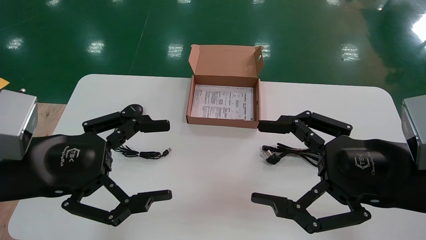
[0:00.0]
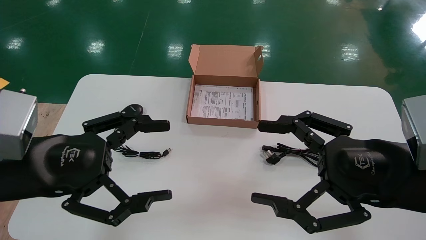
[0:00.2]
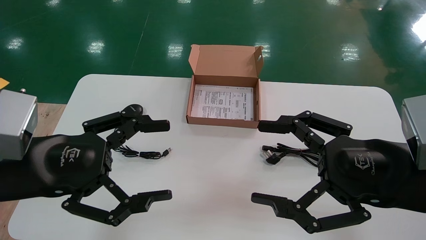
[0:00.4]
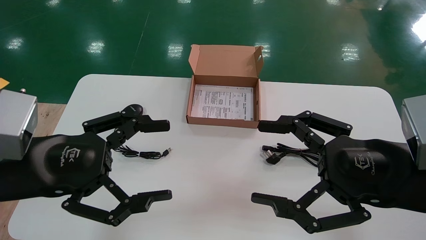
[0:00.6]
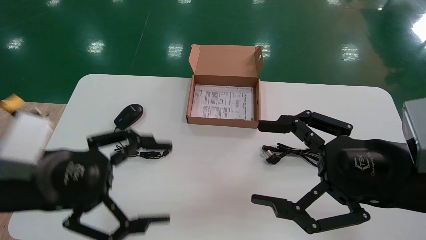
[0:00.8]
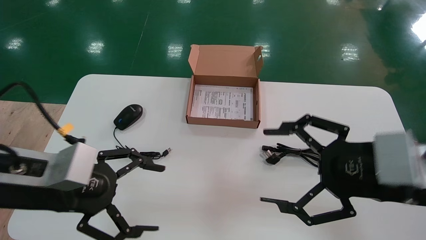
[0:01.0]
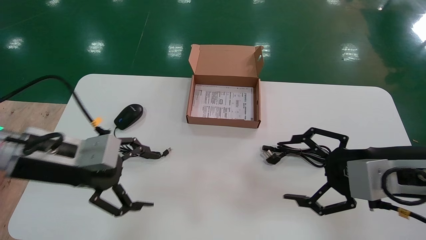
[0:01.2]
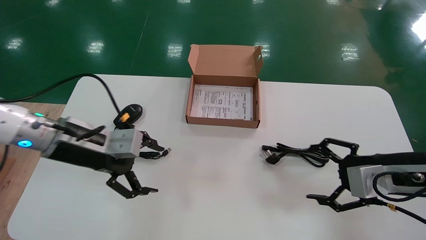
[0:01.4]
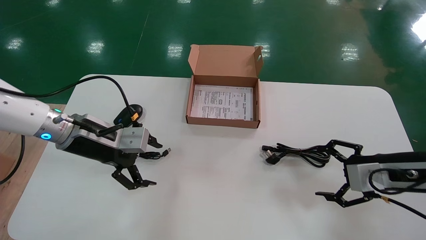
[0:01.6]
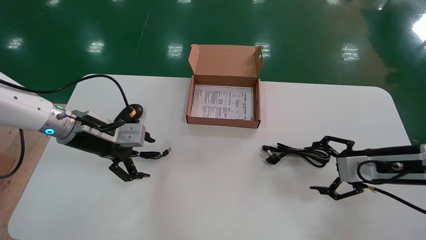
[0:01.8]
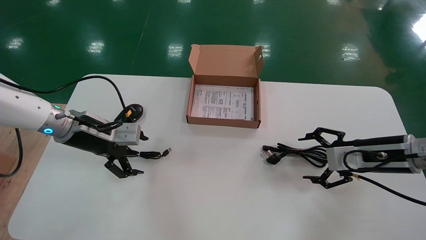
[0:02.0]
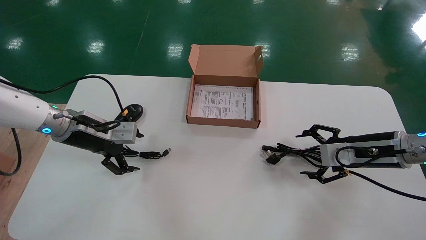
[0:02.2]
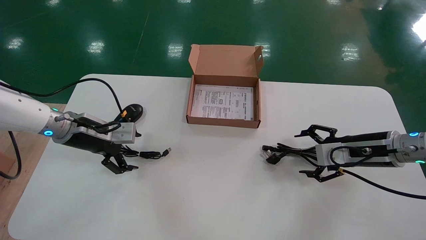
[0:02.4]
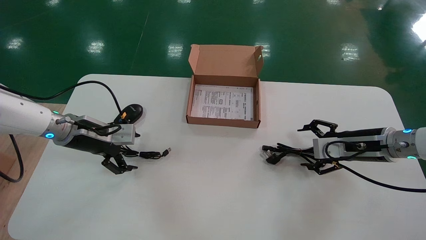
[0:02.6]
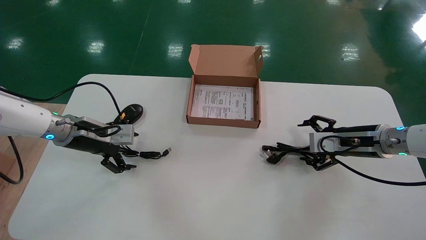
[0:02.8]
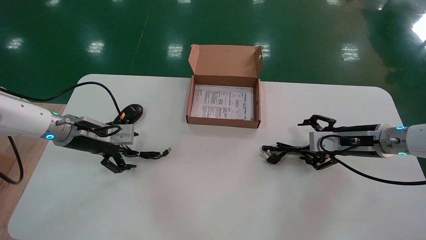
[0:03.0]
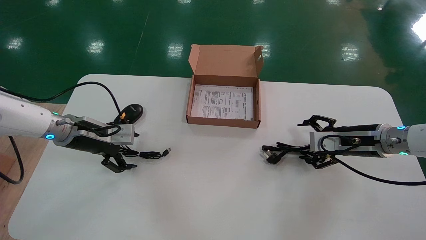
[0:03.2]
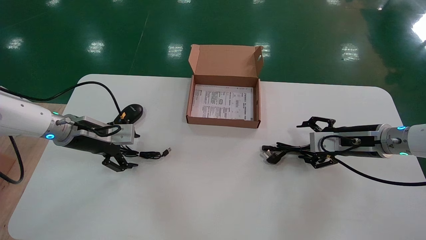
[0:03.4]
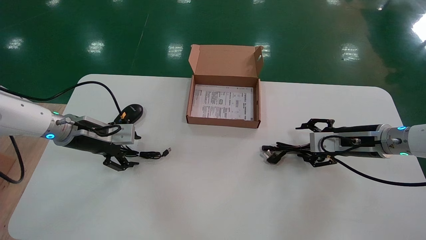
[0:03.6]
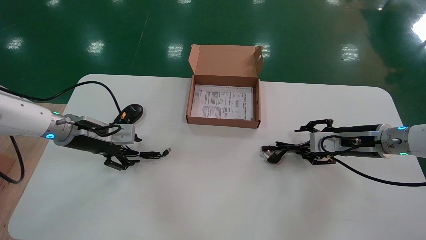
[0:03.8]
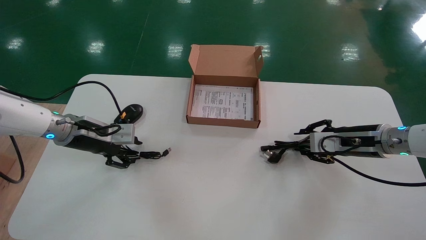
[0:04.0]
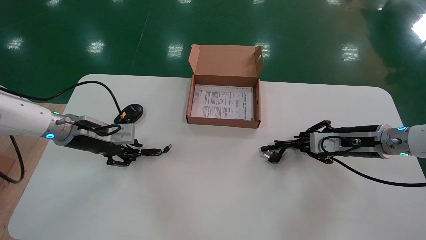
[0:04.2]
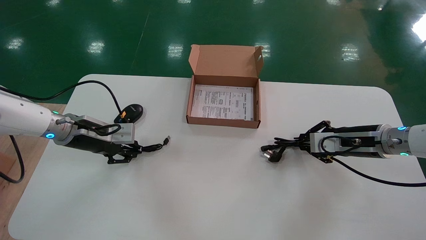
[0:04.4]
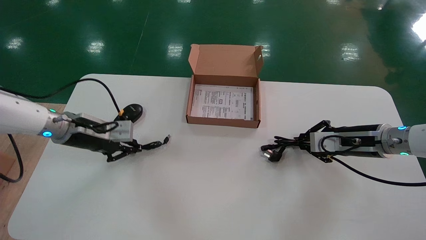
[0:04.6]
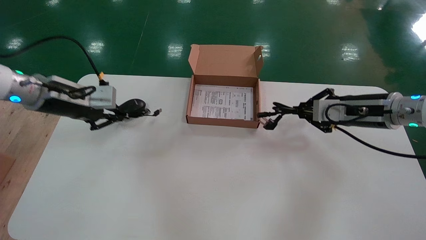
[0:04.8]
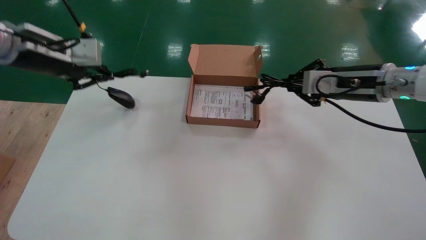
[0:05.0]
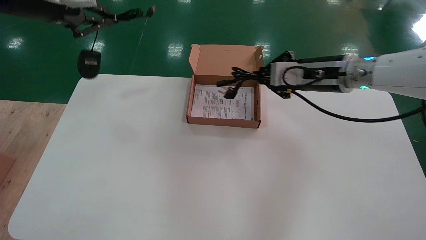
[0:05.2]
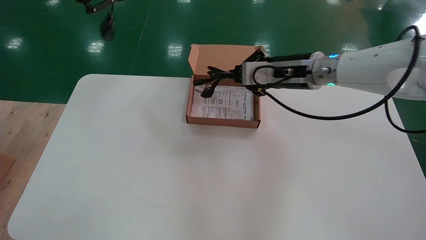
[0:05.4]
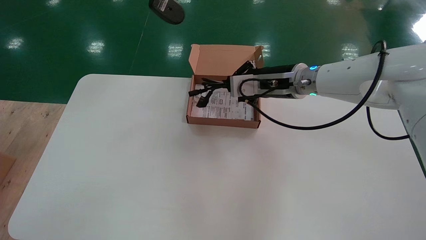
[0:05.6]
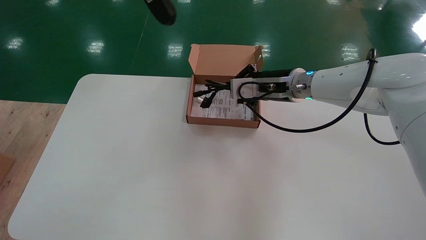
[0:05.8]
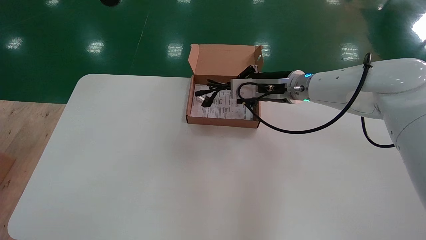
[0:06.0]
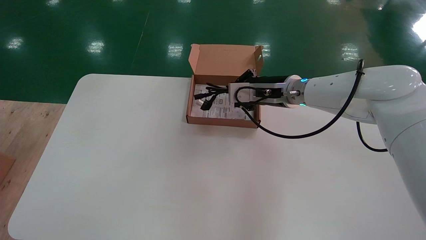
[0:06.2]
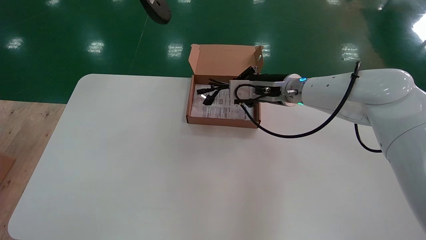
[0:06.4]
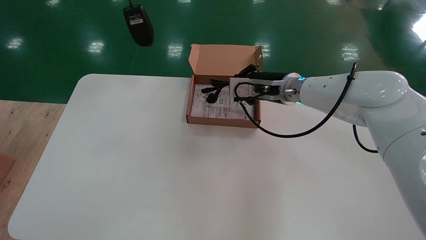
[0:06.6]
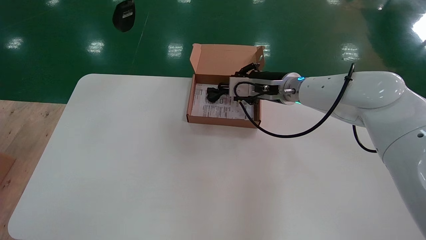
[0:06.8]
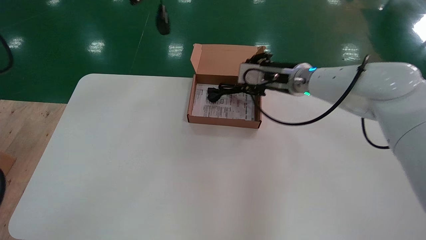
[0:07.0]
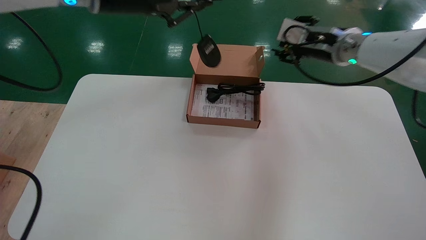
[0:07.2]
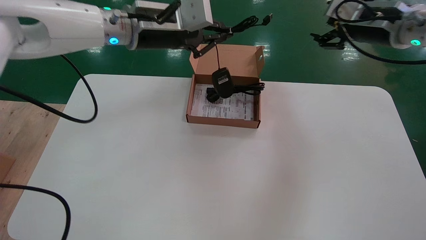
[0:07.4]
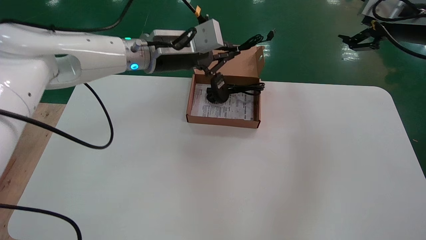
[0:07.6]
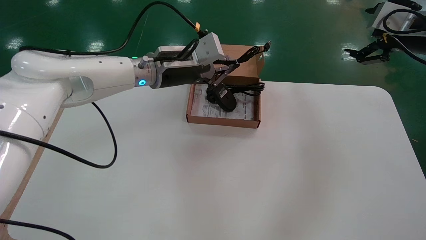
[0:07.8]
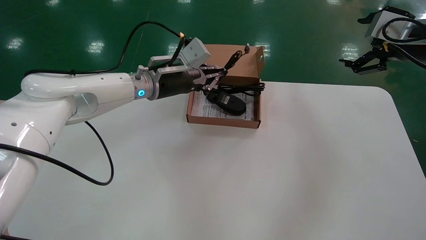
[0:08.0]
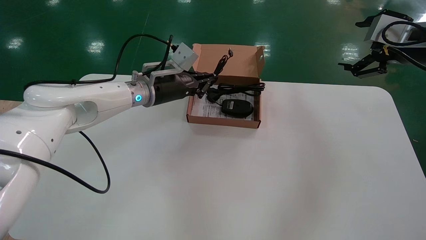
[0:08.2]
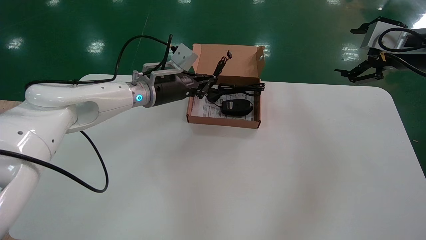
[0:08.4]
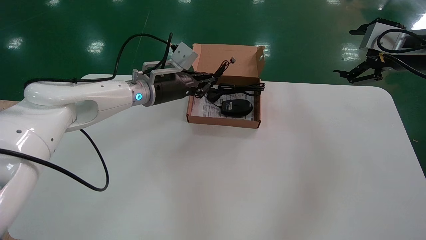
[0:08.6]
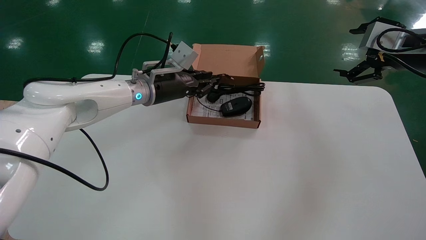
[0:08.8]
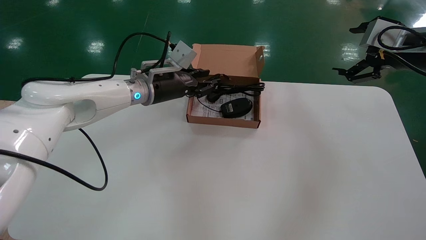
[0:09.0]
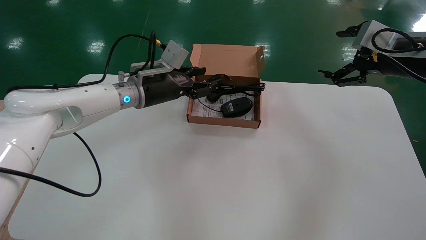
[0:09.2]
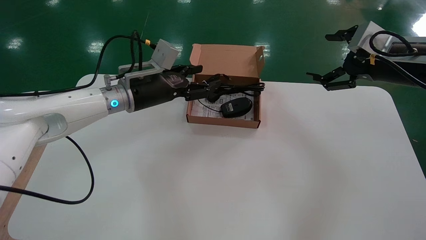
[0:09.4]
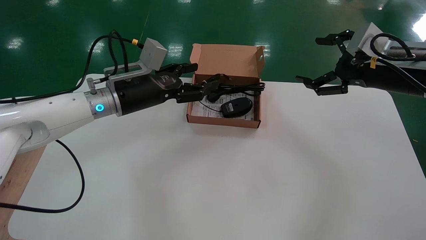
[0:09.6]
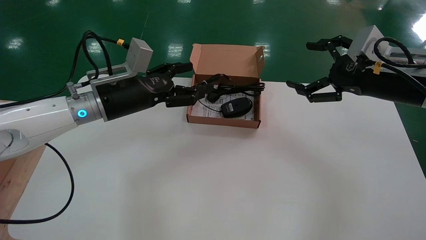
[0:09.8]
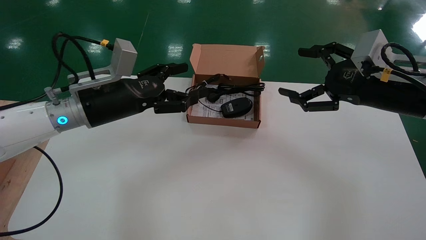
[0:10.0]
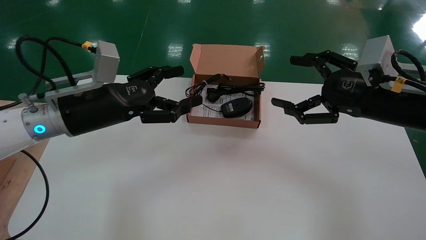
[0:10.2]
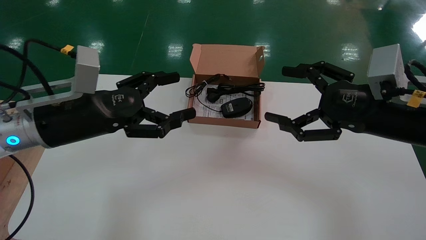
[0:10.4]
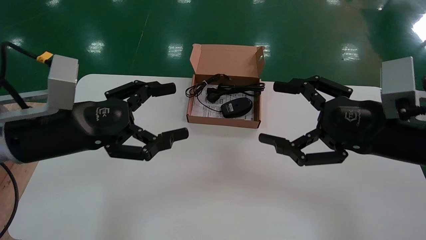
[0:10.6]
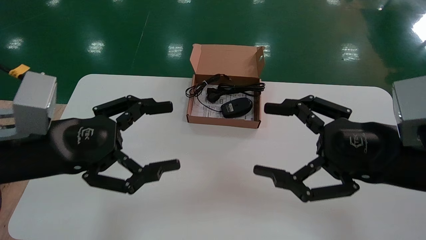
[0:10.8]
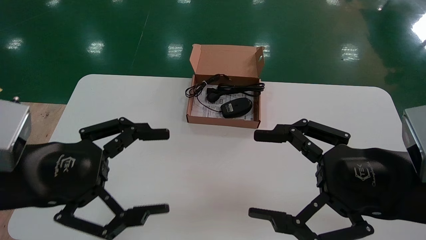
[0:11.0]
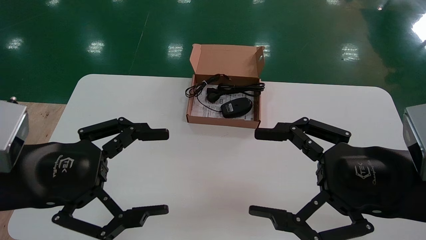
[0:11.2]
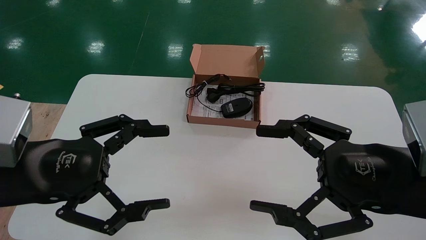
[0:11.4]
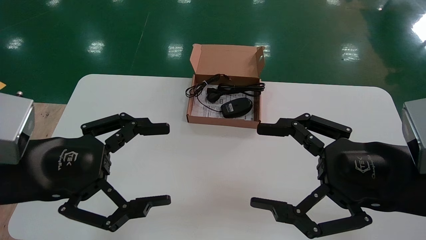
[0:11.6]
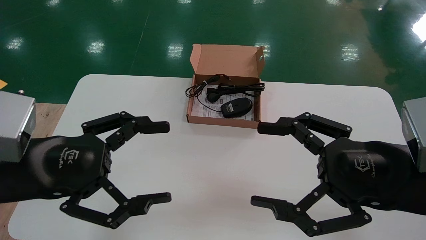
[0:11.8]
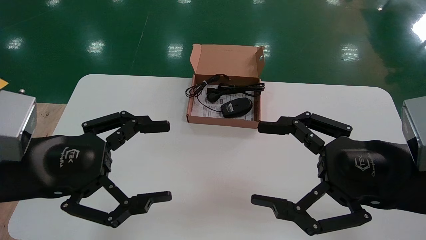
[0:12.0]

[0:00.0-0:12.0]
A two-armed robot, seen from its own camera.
Step, 0:01.2 to 0:04.6: Simultaneously pick up the mouse and power cord from the accessory packaging area.
Step, 0:04.8 to 0:08.8: Place the mouse and power cord into the box.
0:00.0 to 0:01.6: The left gripper heads forward, covering about 15 cm, while the right gripper is displaced forward, to the right and downward by about 15 cm.
0:01.6 to 0:03.0: The left gripper travels forward and to the left by about 10 cm, while the right gripper moves forward, about 10 cm.
0:03.0 to 0:04.4: The left gripper closes its fingers. Meanwhile the right gripper closes.
0:04.4 to 0:06.0: The right gripper travels to the left and upward by some 20 cm, while the left gripper travels upward by about 35 cm.
0:06.0 to 0:07.6: The left gripper moves downward, to the right and forward, some 25 cm; the right gripper goes about 25 cm to the right and upward, and opens its fingers.
0:07.6 to 0:09.0: The left gripper moves downward, roughly 10 cm.
0:09.0 to 0:10.4: The left gripper travels backward and to the left by about 20 cm, and opens its fingers. Meanwhile the right gripper is displaced backward, to the left and downward by roughly 15 cm.
0:10.4 to 0:12.0: The two grippers go roughly 10 cm backward.

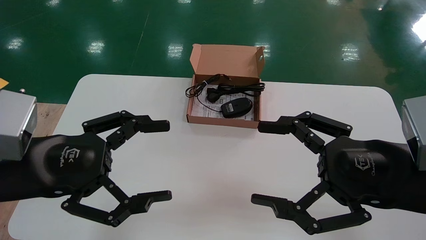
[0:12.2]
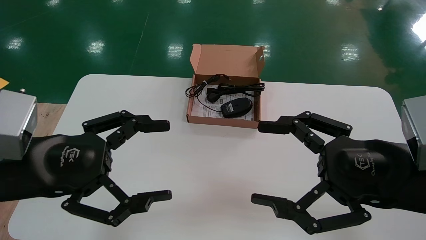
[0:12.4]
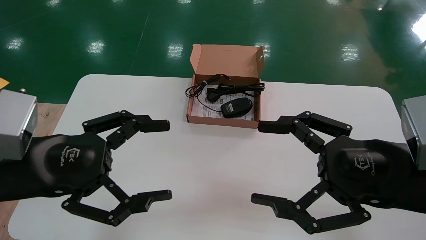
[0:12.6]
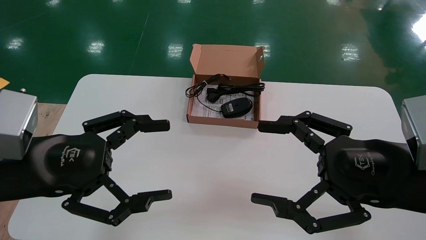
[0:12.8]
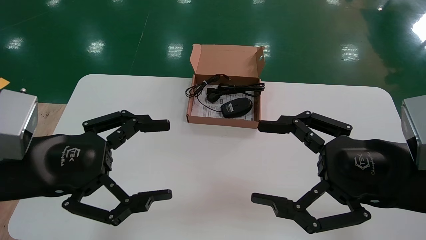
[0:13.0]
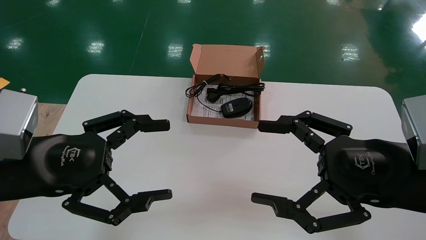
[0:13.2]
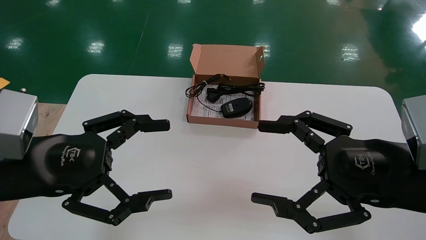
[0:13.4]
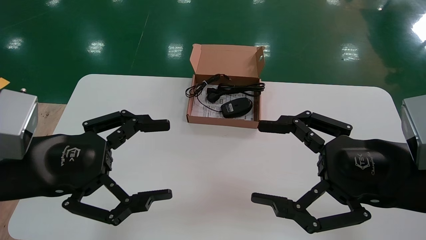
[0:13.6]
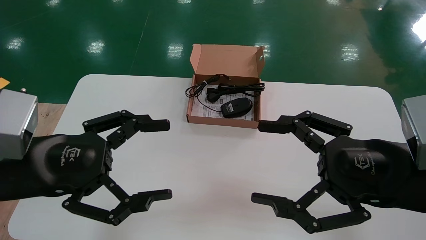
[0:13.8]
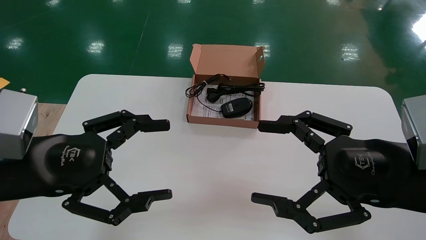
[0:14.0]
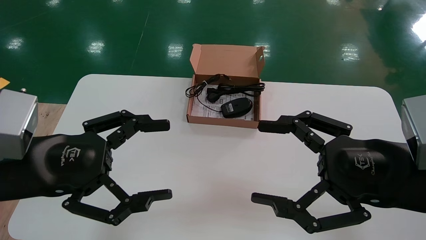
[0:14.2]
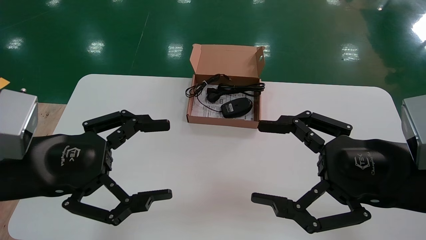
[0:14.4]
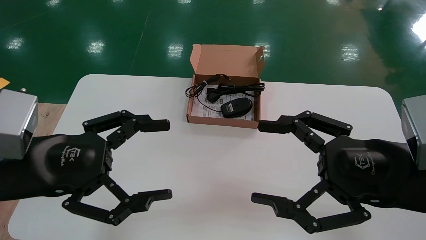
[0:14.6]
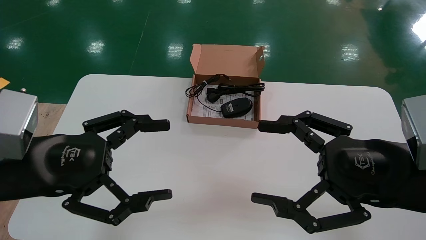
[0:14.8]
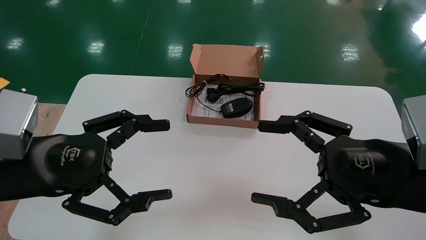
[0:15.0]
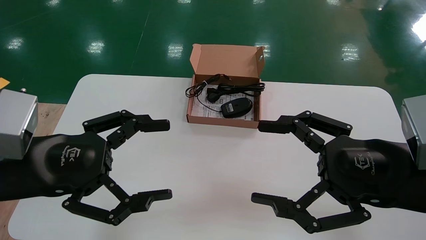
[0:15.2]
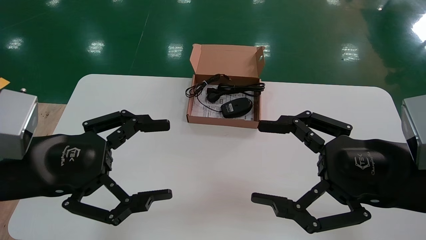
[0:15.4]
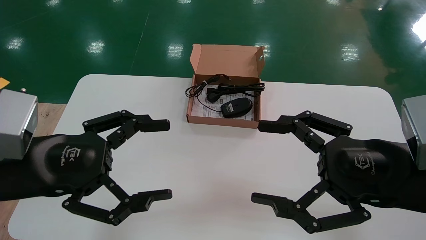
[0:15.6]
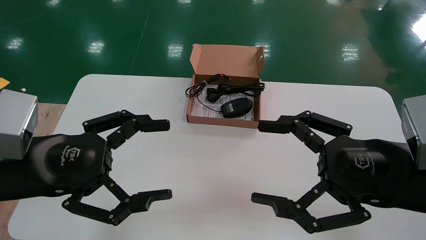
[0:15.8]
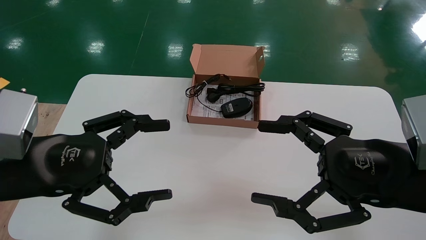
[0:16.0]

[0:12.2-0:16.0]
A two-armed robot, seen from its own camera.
0:12.2 to 0:16.0: Both grippers stay put.
